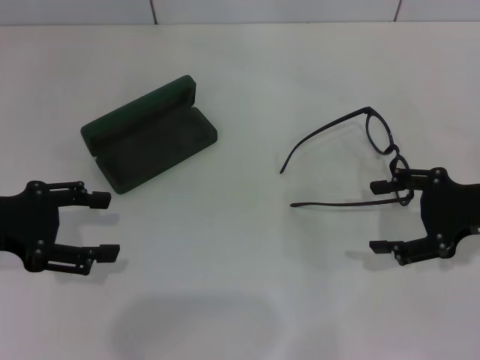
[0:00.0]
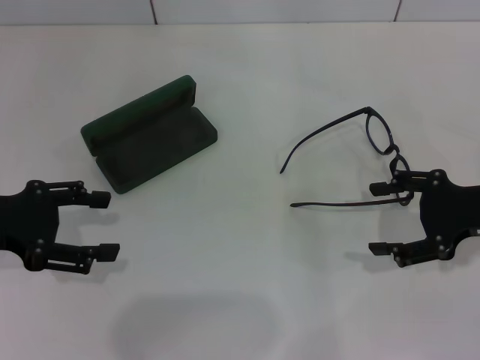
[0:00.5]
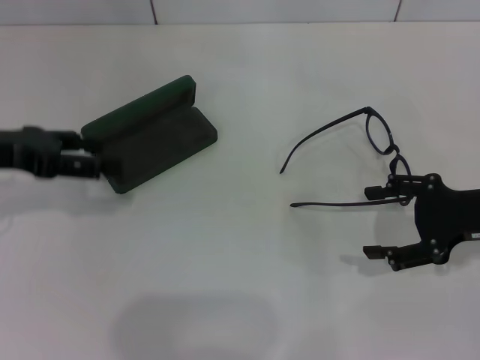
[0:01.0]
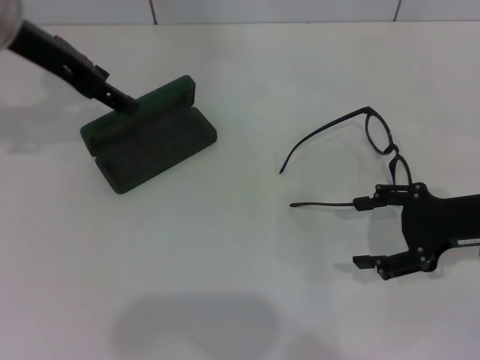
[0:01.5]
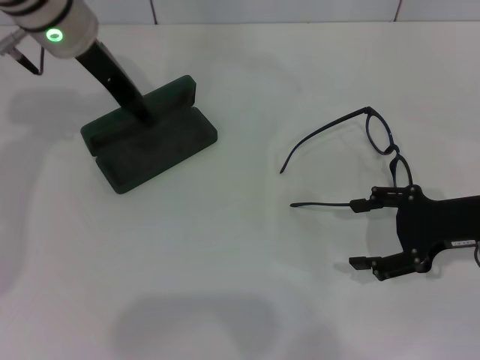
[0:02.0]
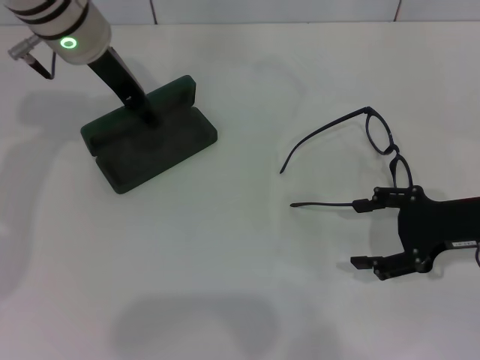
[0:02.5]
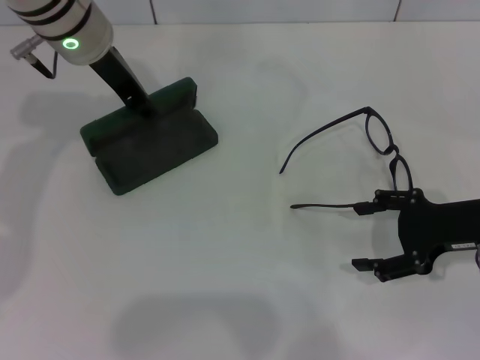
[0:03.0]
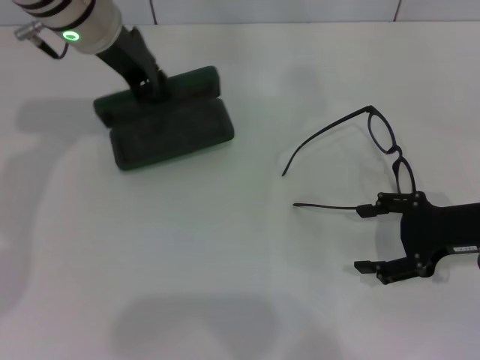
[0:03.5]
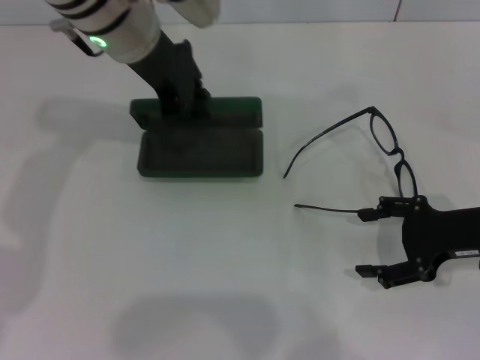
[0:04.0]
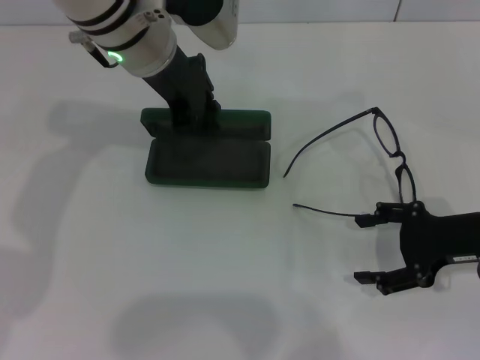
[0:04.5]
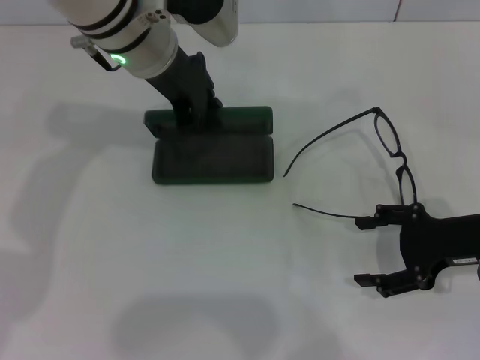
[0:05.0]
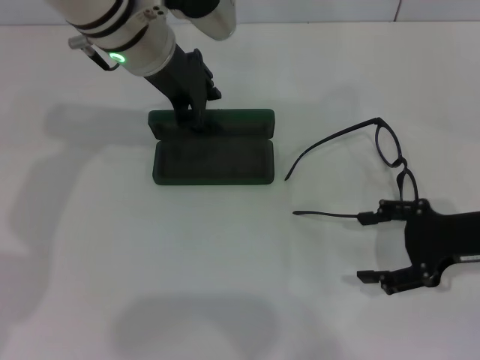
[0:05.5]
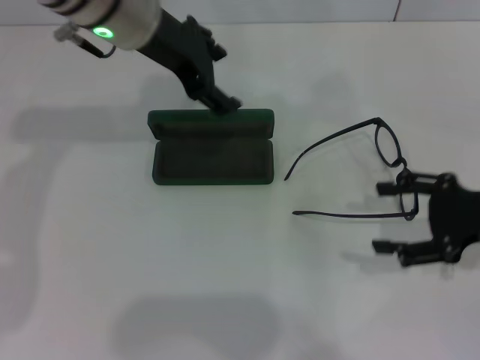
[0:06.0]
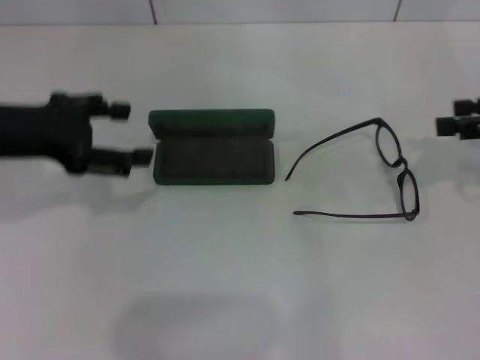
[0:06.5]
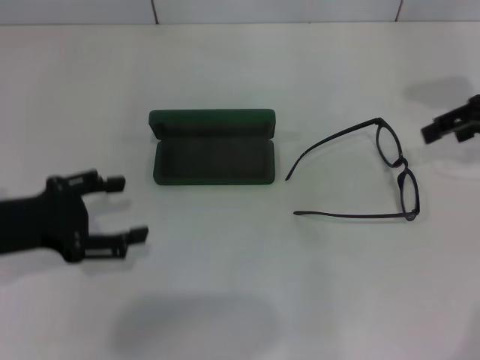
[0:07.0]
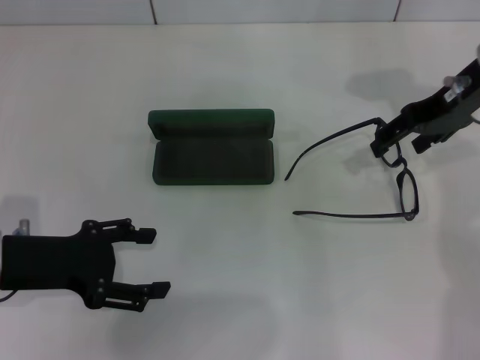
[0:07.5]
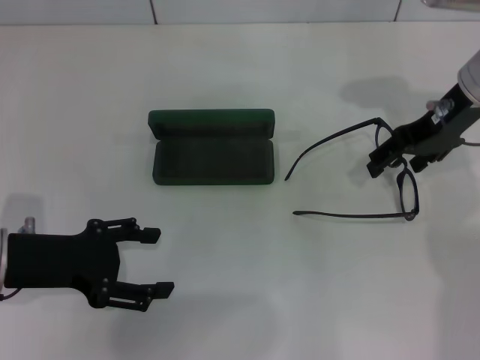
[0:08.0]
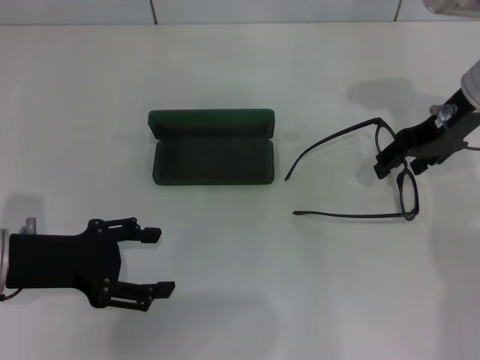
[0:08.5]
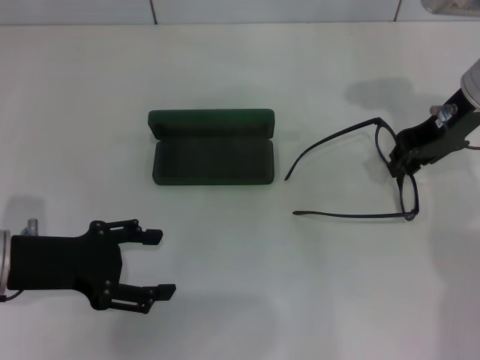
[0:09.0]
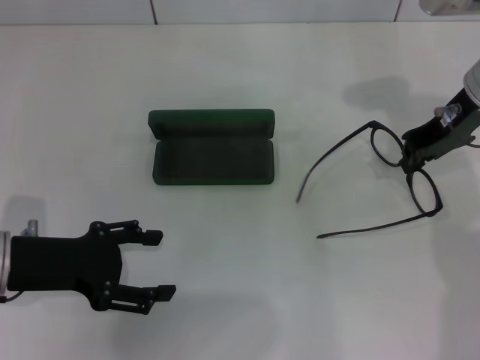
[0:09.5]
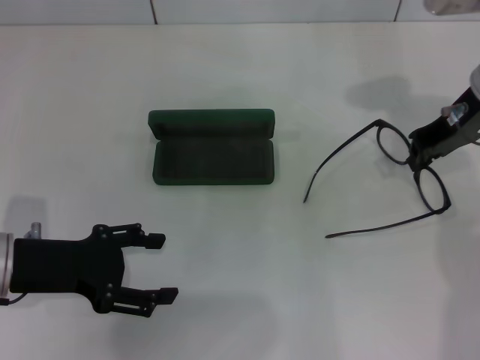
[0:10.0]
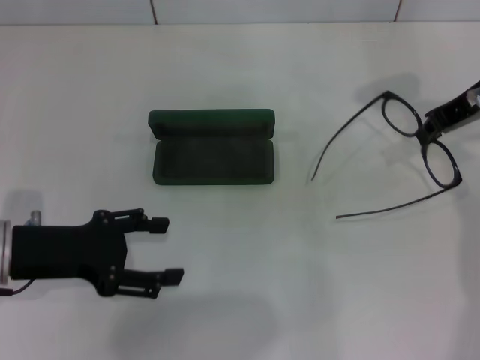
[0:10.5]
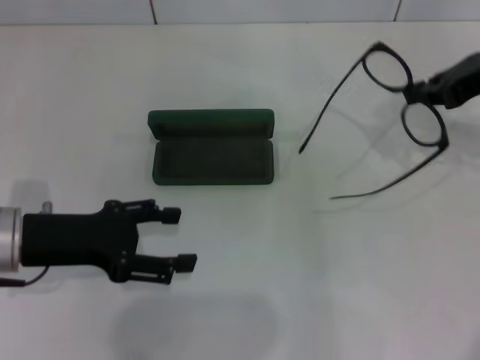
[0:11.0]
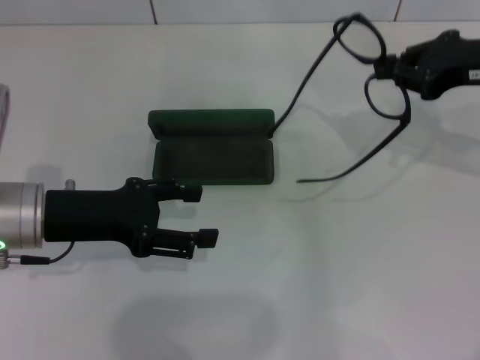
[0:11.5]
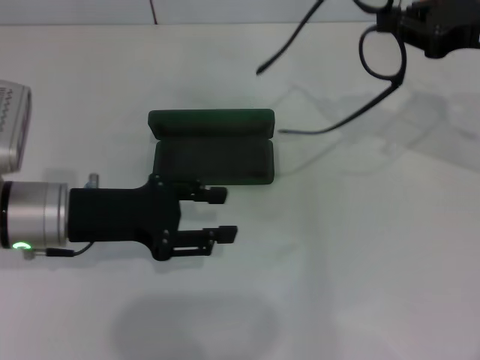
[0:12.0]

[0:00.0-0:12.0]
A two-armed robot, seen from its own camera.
Step, 0:00.0 to 0:03.0: Grab the glasses case with your left hand.
Step, 0:03.5 to 0:05.0: Place the glasses case in the center of the table with your left hand.
Step, 0:05.5 to 0:09.5: Grab the eyeglass frame with your right hand.
0:00.0 to 0:02.0: The left gripper is displaced forward, to the right and upward by about 25 cm.
0:02.0 to 0:04.0: The left gripper shifts about 5 cm to the right, and closes.
0:04.0 to 0:06.0: The left gripper opens up.
0:06.0 to 0:08.0: The right gripper goes approximately 15 cm forward, to the left and upward, while the left gripper travels backward, to the left and downward by about 25 cm.
0:08.0 to 0:10.0: The right gripper closes.
0:10.0 to 0:12.0: The left gripper shifts by roughly 5 cm; the right gripper goes some 5 cm to the right.

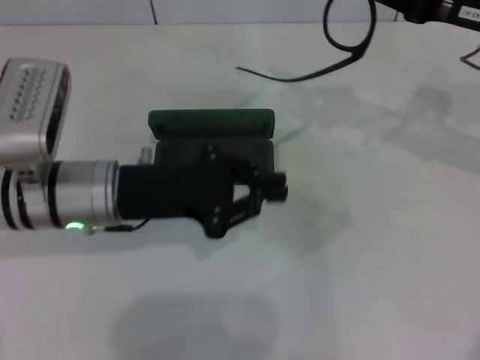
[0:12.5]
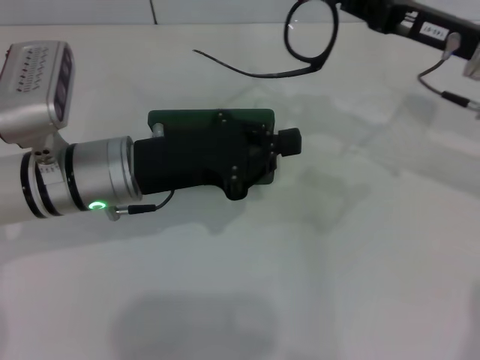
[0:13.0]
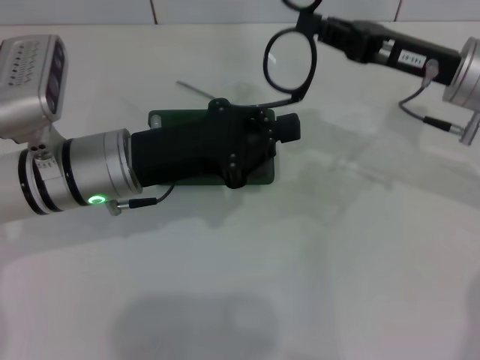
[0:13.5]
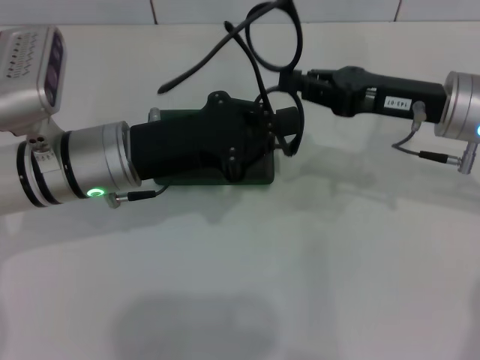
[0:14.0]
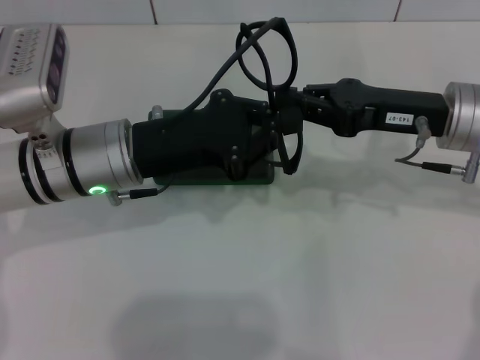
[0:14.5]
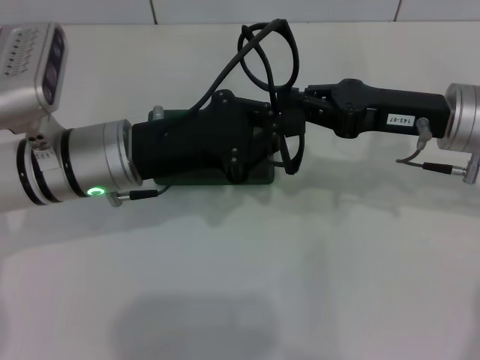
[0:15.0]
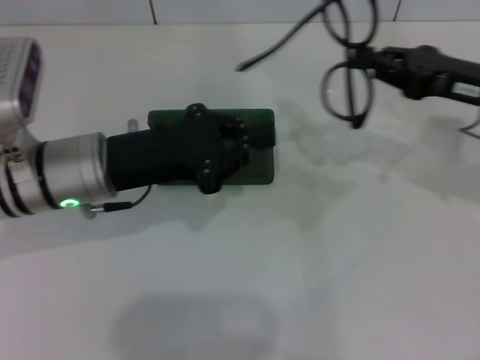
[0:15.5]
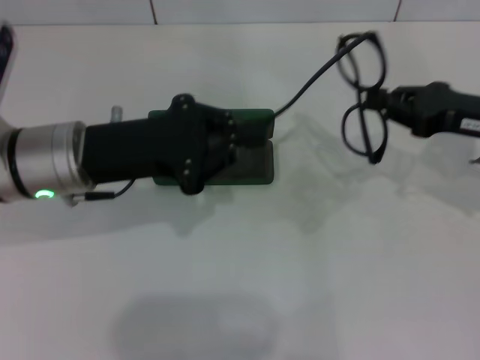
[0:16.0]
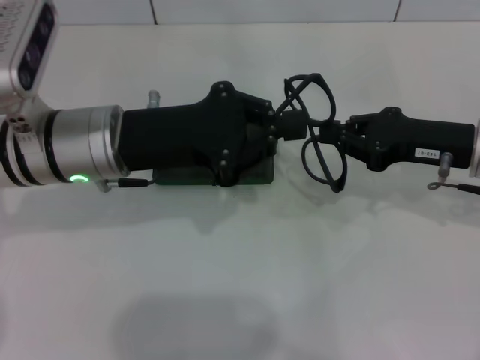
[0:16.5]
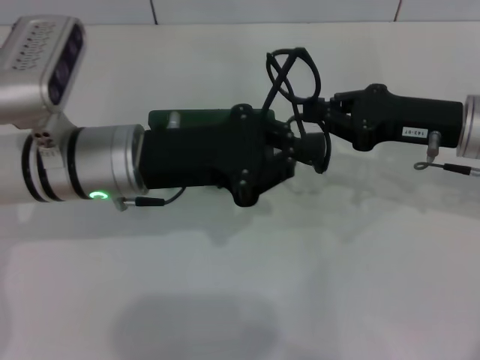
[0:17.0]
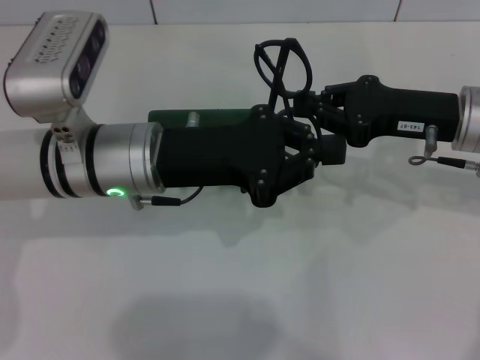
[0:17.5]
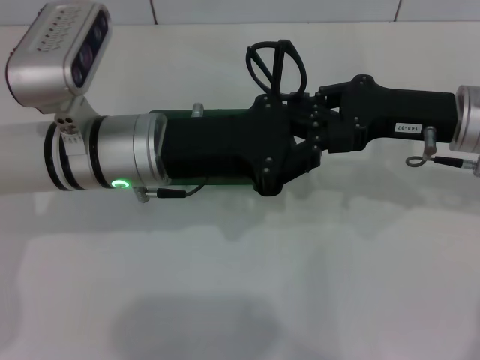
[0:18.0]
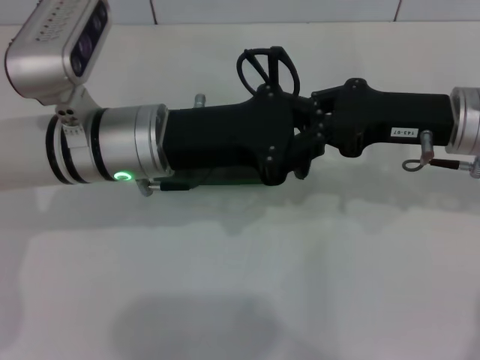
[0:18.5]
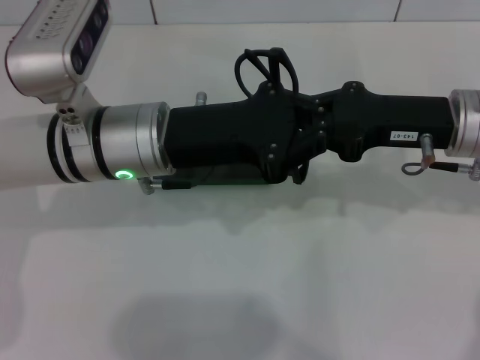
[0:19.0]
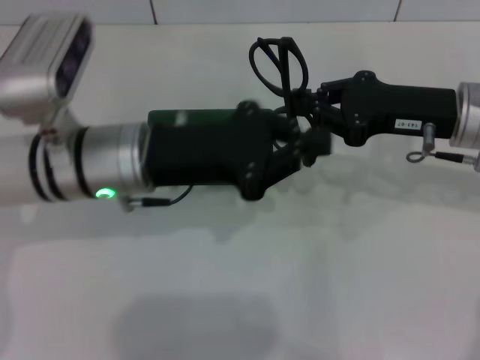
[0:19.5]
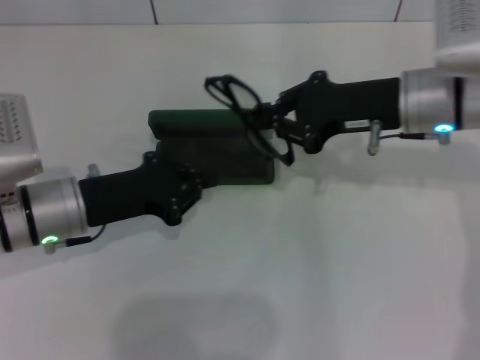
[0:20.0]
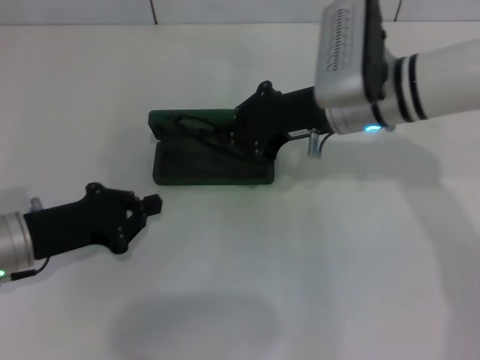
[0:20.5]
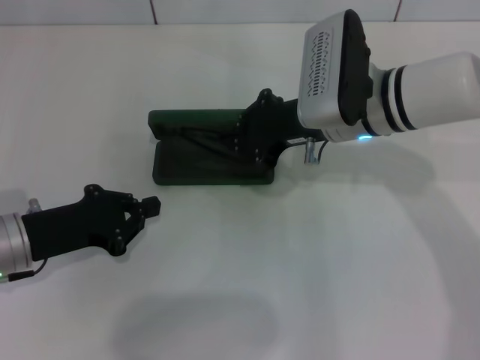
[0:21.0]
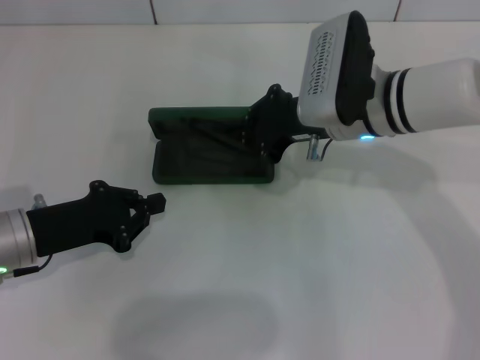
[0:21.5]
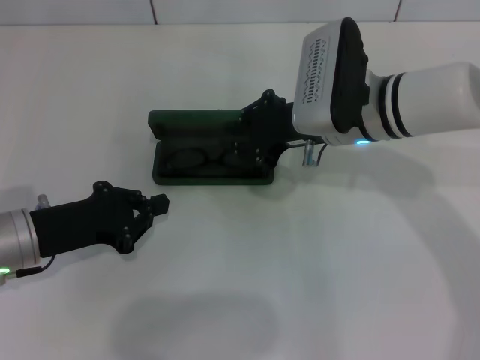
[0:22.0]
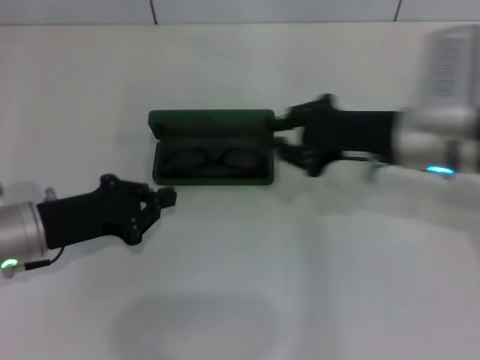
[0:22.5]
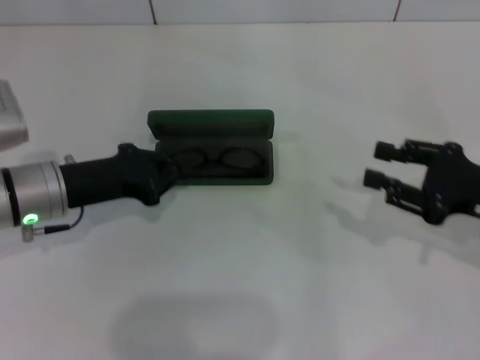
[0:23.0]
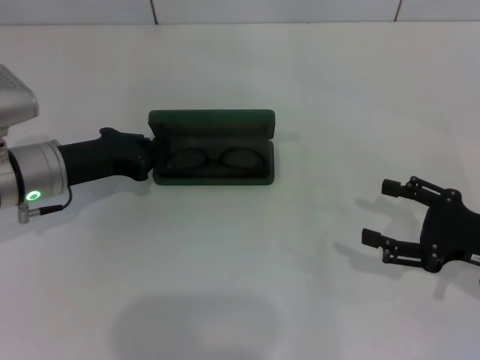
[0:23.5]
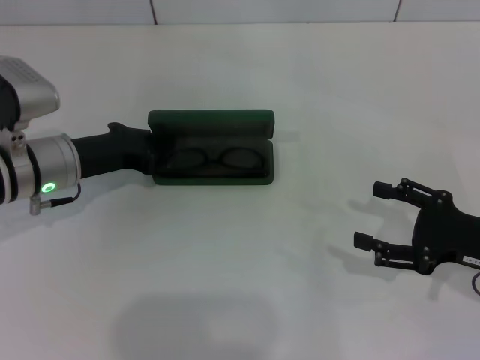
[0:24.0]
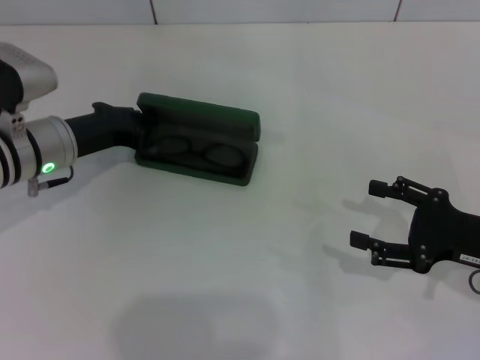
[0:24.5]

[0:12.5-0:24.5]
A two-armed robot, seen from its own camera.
Step, 0:12.5 to 0:19.0: Lift the glasses with your right hand.
Step, 0:19.5 to 0:21.5: Put the glasses into the case with your right hand.
0:12.5 to 0:14.5: The right gripper heads to the left and downward, covering about 5 cm.
0:18.5 to 0:20.5: The left gripper shifts some 15 cm to the left and downward; the right gripper shifts about 10 cm to the left.
0:20.5 to 0:22.5: The right gripper travels to the right by about 5 cm.
0:22.5 to 0:24.5: The right gripper moves to the right, backward and downward, roughly 15 cm, and opens up; the left gripper is displaced forward by approximately 10 cm.

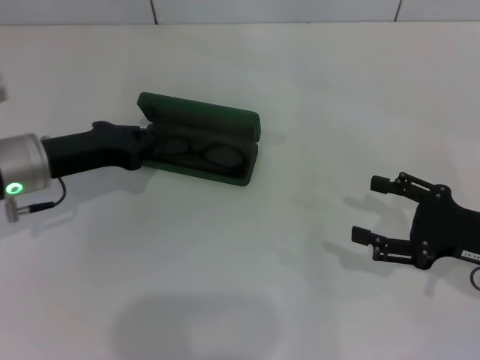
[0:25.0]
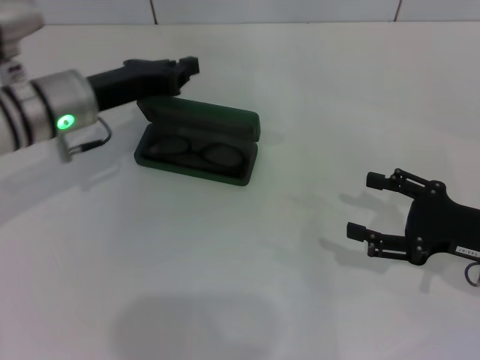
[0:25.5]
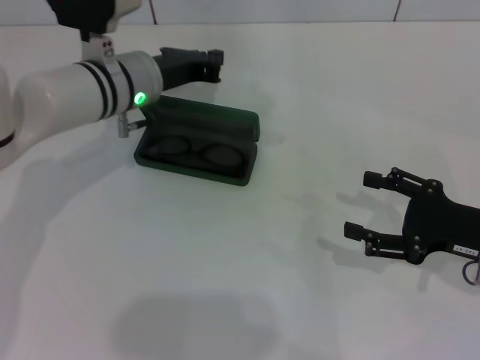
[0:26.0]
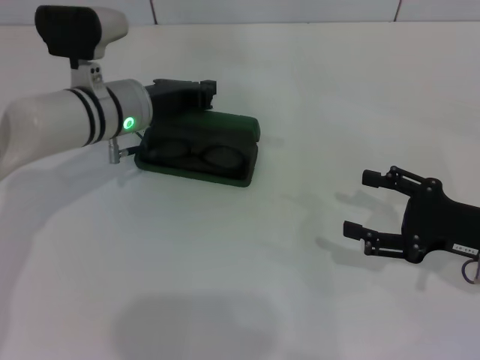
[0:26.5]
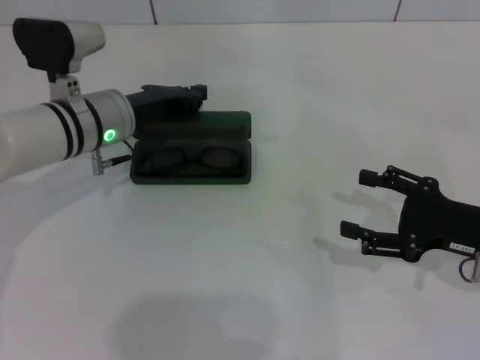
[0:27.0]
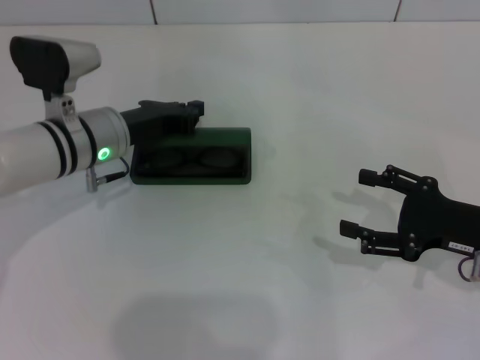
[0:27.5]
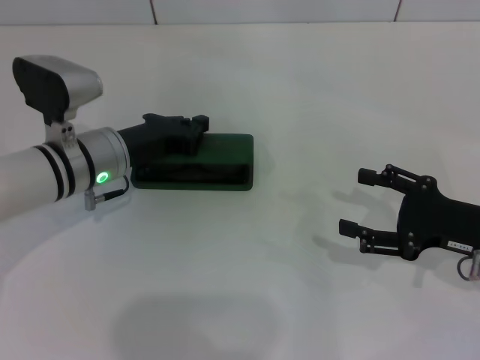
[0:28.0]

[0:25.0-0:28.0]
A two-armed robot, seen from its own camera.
0:25.0 to 0:26.5: The left gripper is displaced to the right and forward by some 10 cm.
0:26.5 to 0:28.0: The left gripper shifts by some 5 cm.
